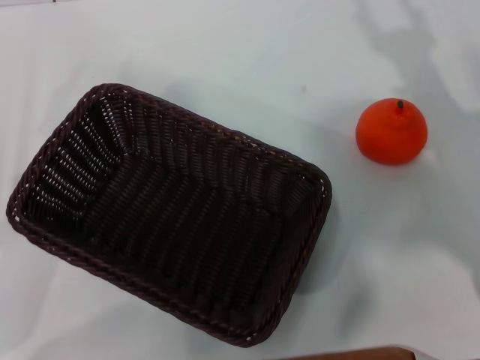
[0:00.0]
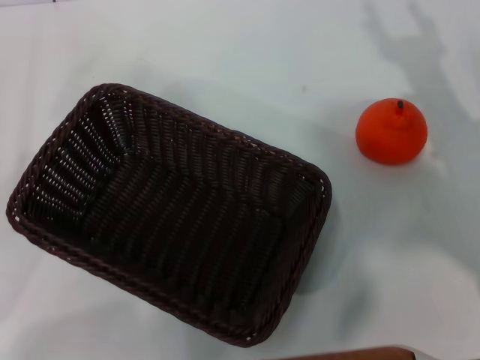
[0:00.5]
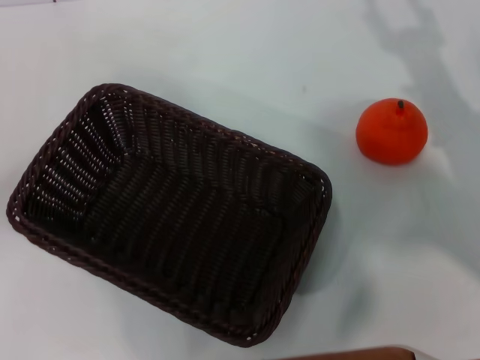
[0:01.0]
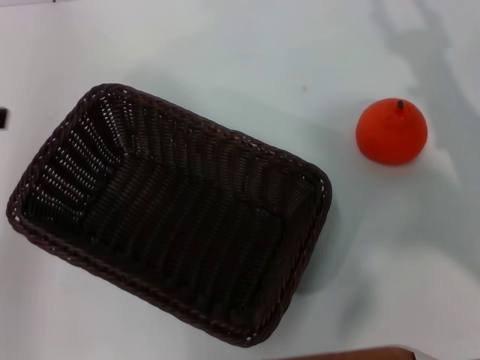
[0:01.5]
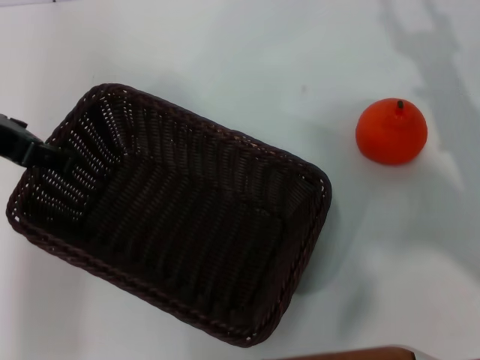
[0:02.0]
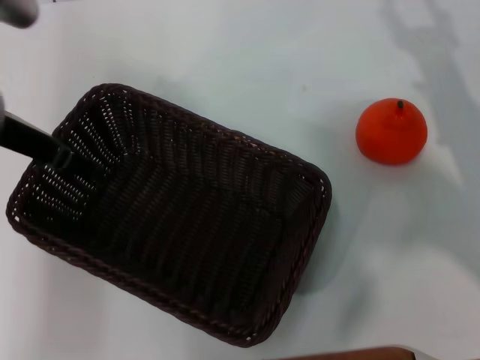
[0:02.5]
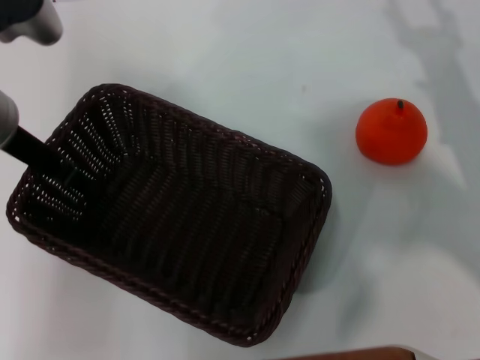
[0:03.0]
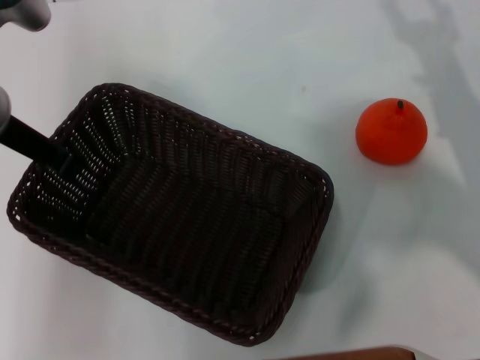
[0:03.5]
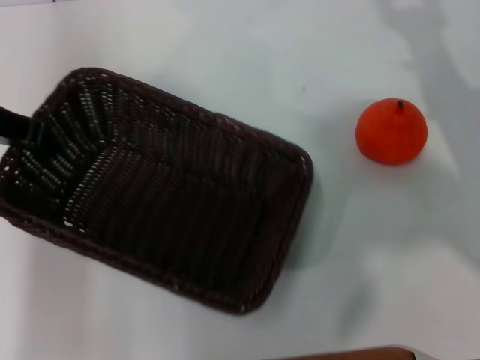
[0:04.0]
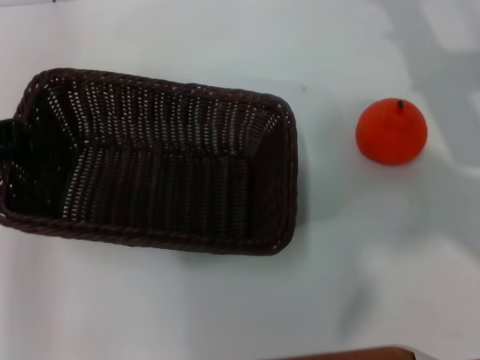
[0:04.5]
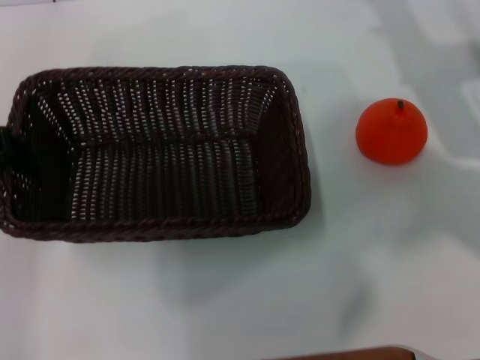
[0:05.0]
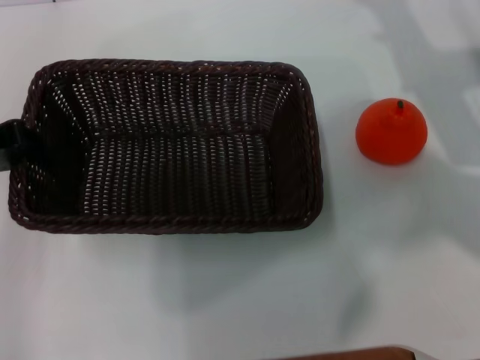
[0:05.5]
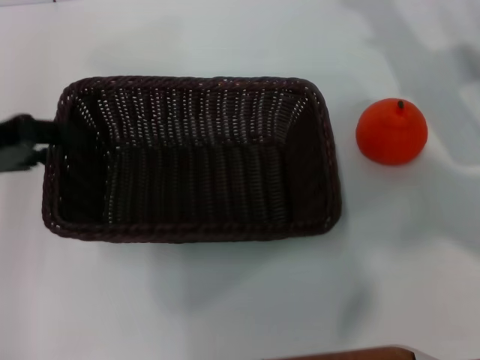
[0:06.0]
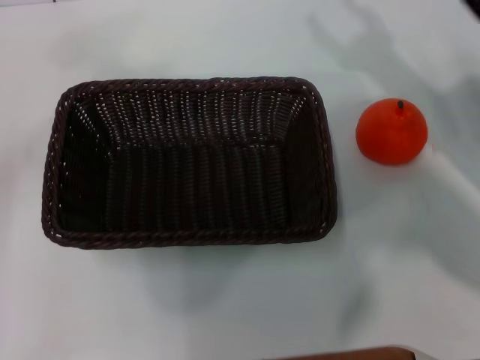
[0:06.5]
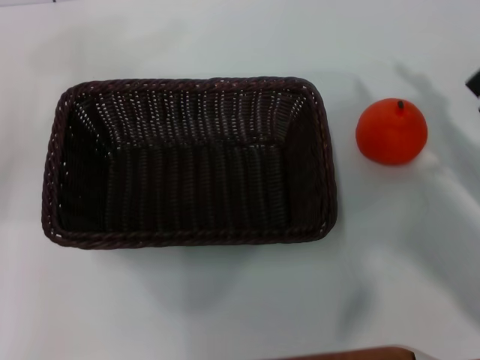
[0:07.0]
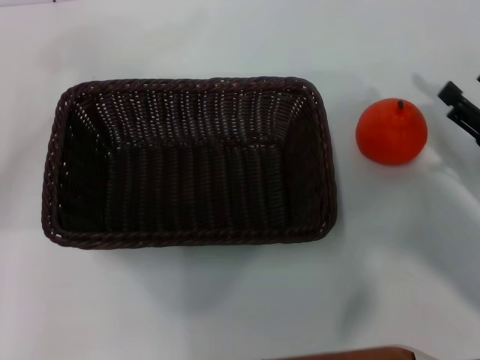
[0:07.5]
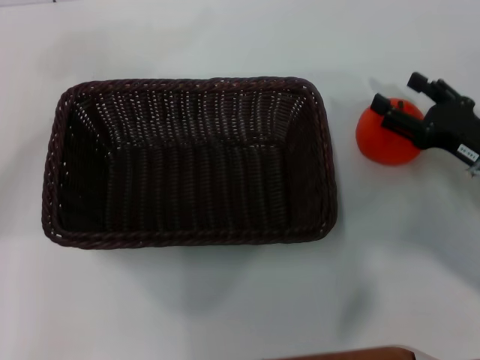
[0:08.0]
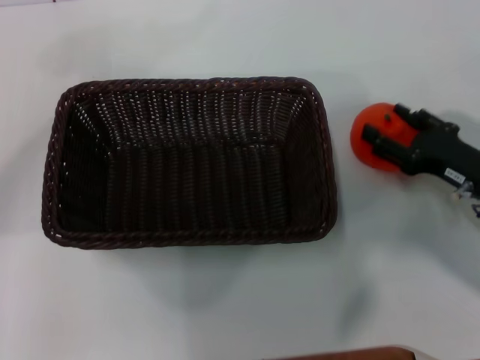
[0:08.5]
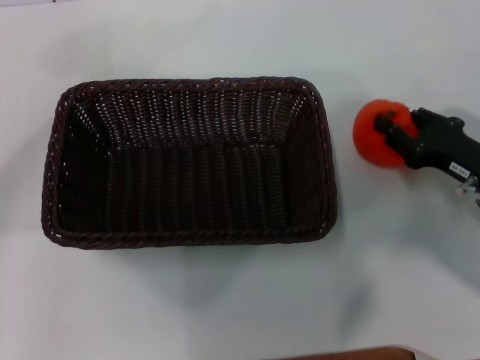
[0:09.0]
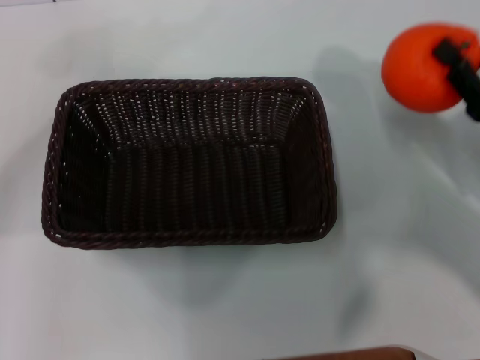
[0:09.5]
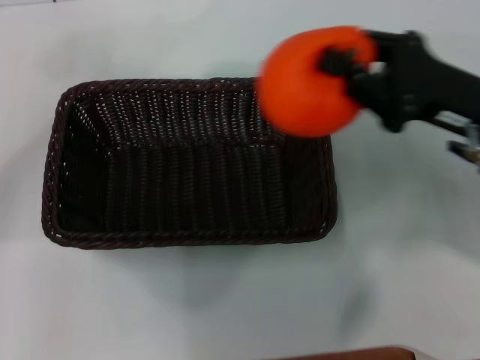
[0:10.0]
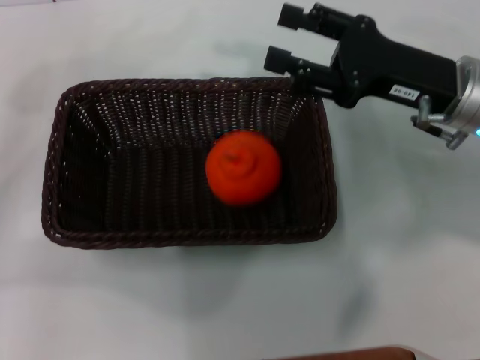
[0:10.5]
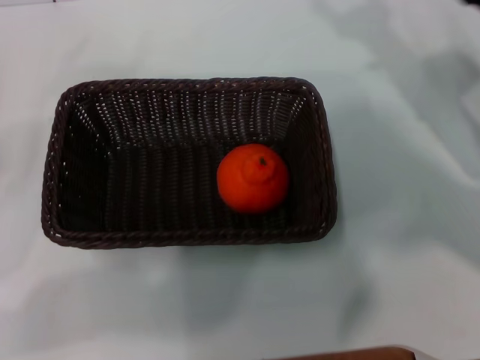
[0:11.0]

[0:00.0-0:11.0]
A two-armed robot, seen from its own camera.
Task of the whole recording: the left gripper pick up the black basket and place it horizontally in the middle of the table, the right gripper pick up the orange and place it into the black basket.
Step, 0:00.0 to 0:04.0: Pick up the dark basket with the left gripper.
Step, 0:04.5 to 0:06.0: Place the dark basket in the center of view with the left gripper.
Step, 0:06.5 to 0:09.0: Pick up the orange with the right gripper.
Step, 0:09.5 to 0:10.5: Place the orange into the dark basket with the right gripper.
0:00.0 to 0:02.0: The left gripper heads upward, forward and to the right, covering about 25 cm.
0:02.0 to 0:03.5: The left gripper ends up some 5 cm from where it was, and closes.
0:03.5 to 0:05.5: The right gripper shifts about 5 cm forward, while the left gripper is displaced to the left by roughly 10 cm.
0:05.5 to 0:07.5: The left gripper heads to the left, covering about 10 cm, and opens its fingers. The right gripper heads backward and downward, covering some 15 cm.
0:07.5 to 0:09.0: The right gripper moves about 5 cm, and closes.
0:09.0 to 0:11.0: The right gripper travels upward and forward by about 10 cm, and opens its fingers, while the left gripper goes about 10 cm downward and backward.

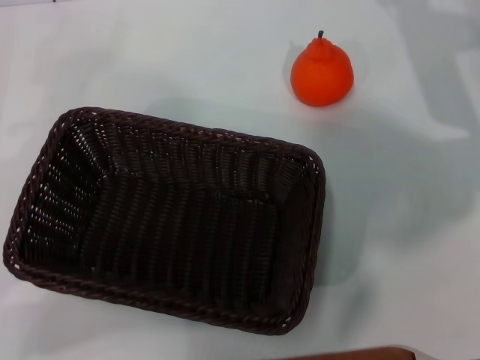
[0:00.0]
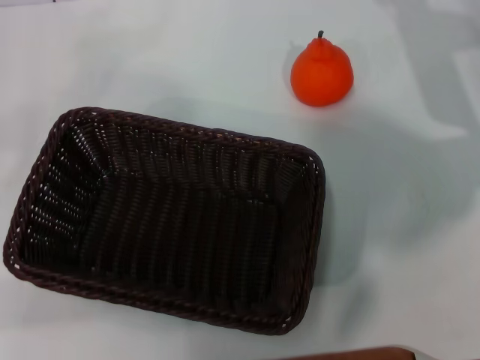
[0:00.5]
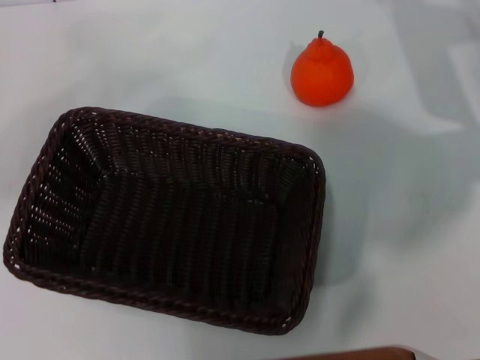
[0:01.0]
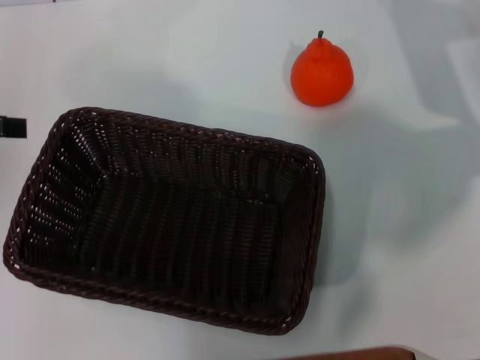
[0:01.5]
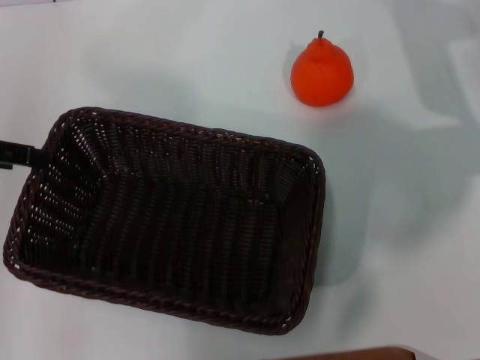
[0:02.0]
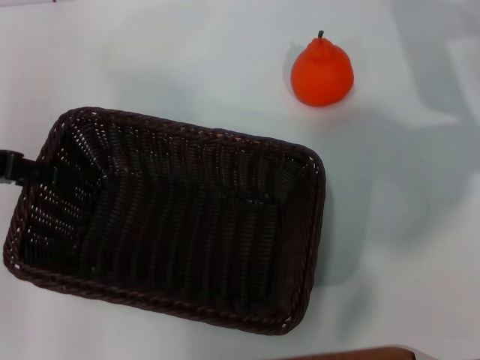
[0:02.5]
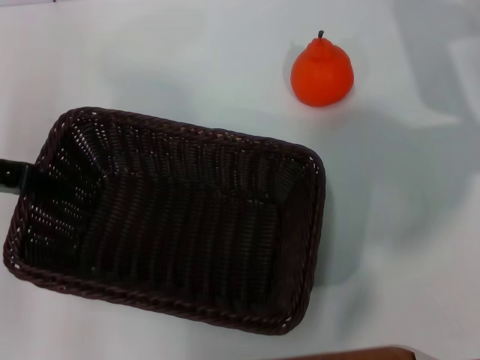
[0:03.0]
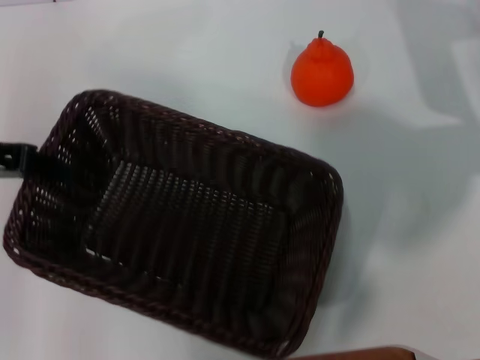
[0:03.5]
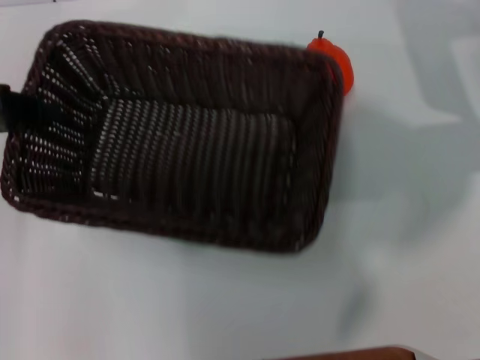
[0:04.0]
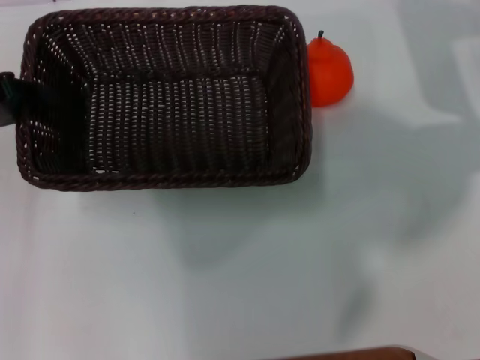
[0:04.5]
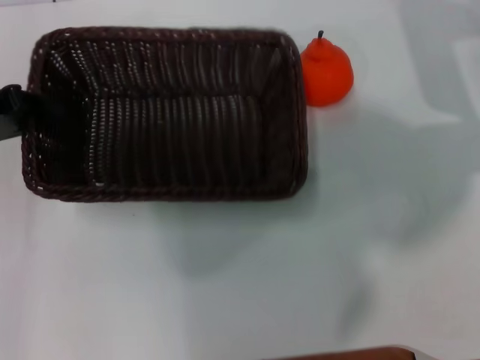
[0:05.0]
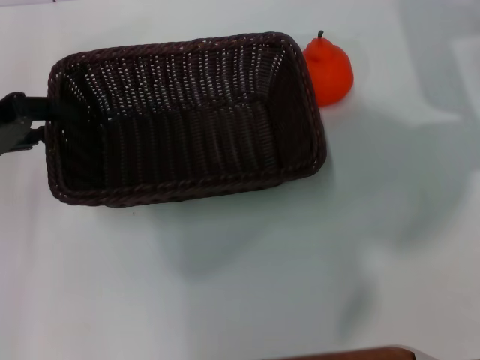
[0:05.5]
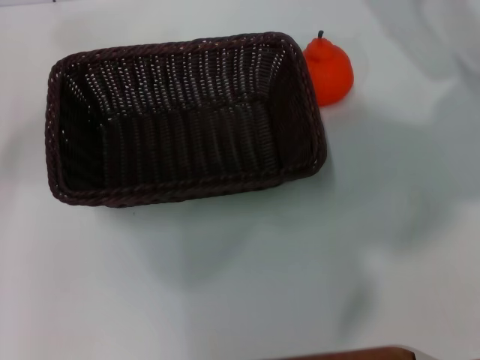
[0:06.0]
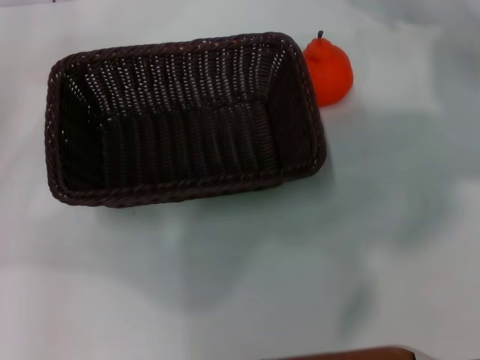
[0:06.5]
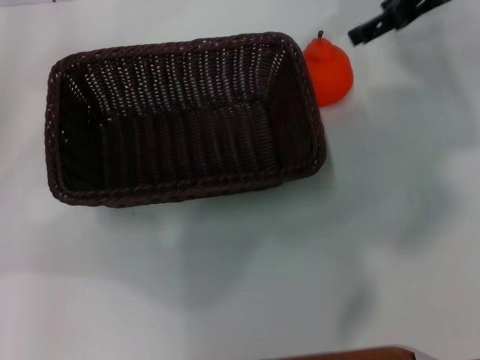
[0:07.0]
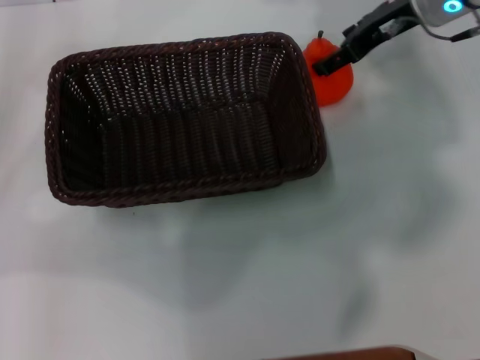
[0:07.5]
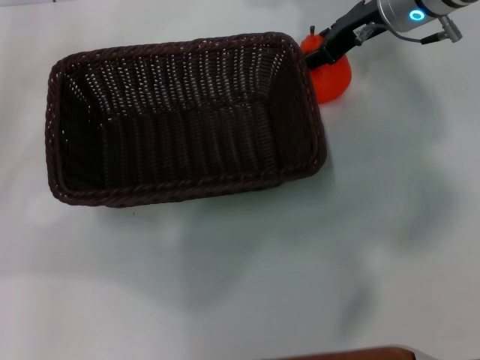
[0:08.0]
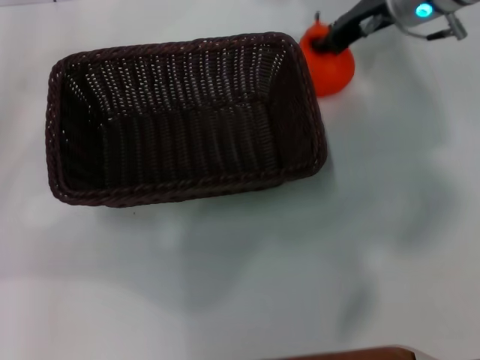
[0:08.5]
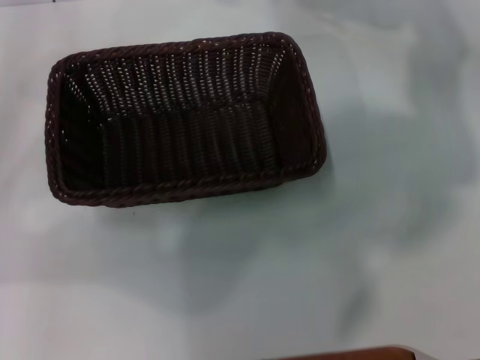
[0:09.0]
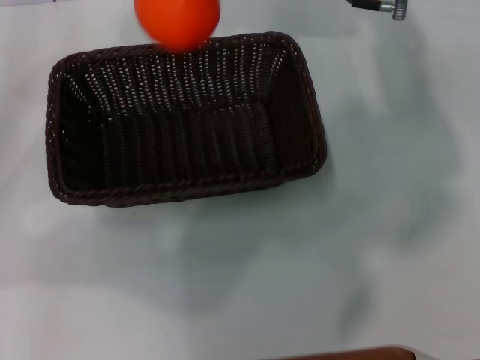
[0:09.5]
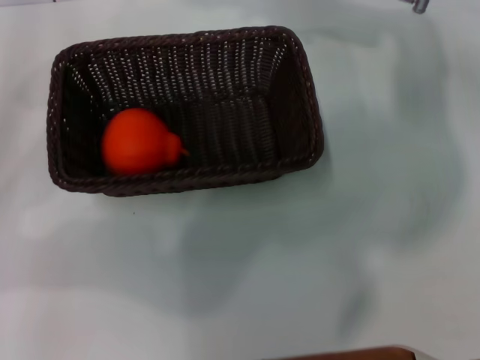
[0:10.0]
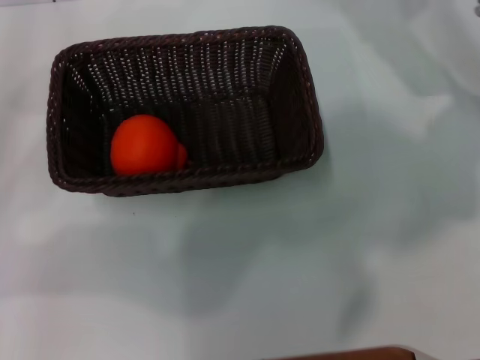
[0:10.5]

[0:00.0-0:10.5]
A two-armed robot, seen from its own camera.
Task of the whole recording: the left gripper pick up the black basket and place it horizontally in the middle of the table, the right gripper pick up the orange and place it into the black basket.
Step, 0:00.0 to 0:03.5: Pick up the dark basket with the left gripper.
Step, 0:04.0 to 0:05.5: Place the dark basket in the center of view with the left gripper.
Step, 0:06.0 to 0:08.5: Pick up the orange with the right gripper.
Step, 0:09.0 to 0:09.5: Place the orange into the dark basket with the right gripper.
0:00.0 to 0:02.0: The left gripper travels upward and forward by roughly 15 cm.
0:02.0 to 0:04.0: The left gripper closes its fingers.
0:04.0 to 0:06.5: The right gripper shifts roughly 10 cm upward. Meanwhile the left gripper travels to the left by roughly 5 cm, and opens up.
0:06.5 to 0:08.5: The right gripper moves to the left, about 10 cm, and closes.
0:08.5 to 0:10.5: The right gripper is displaced to the right and backward by roughly 10 cm, and opens.
